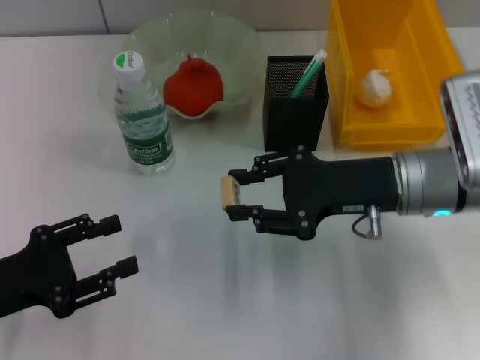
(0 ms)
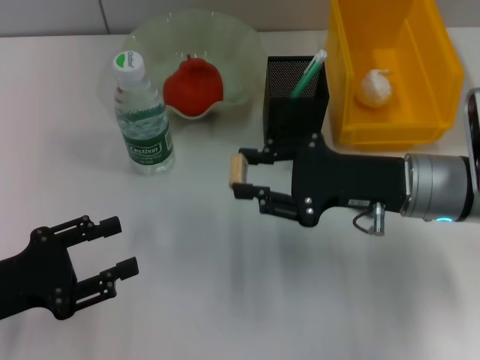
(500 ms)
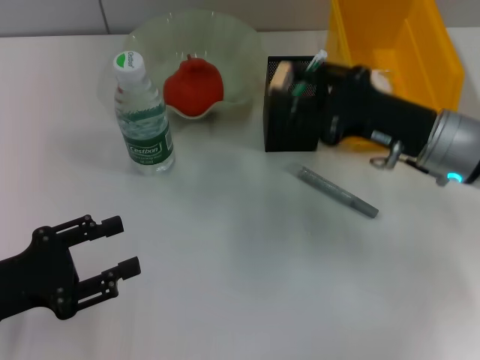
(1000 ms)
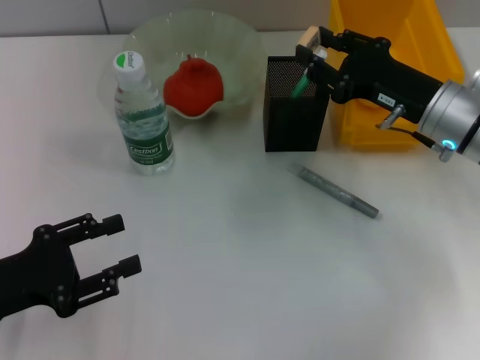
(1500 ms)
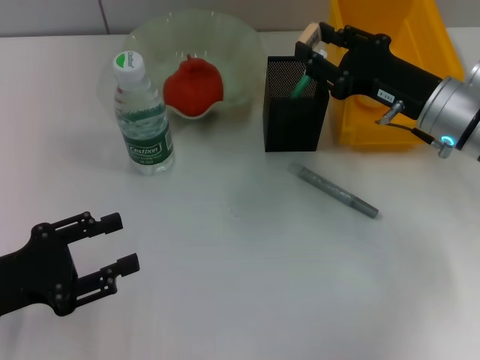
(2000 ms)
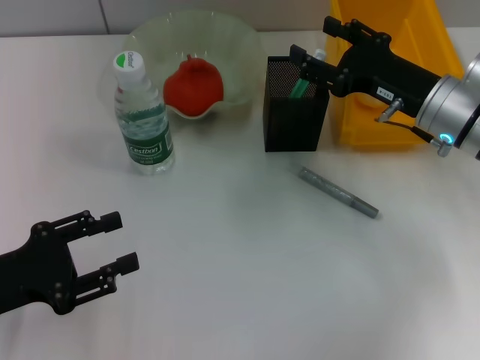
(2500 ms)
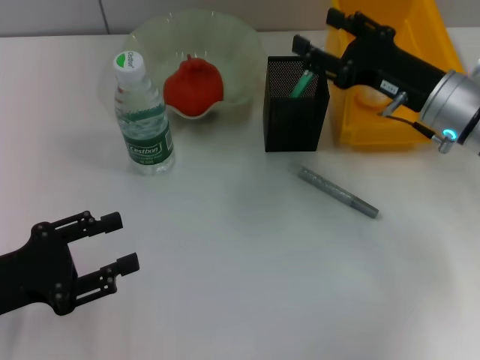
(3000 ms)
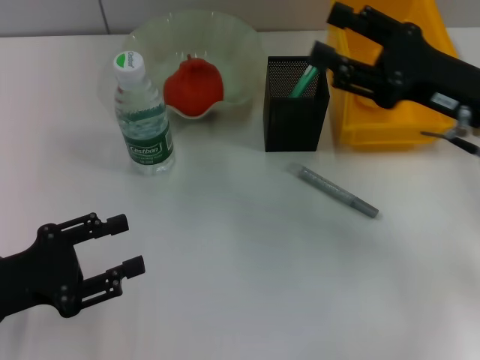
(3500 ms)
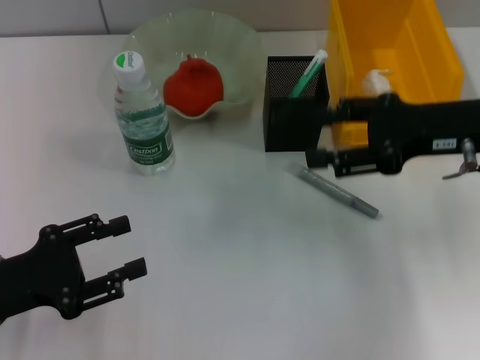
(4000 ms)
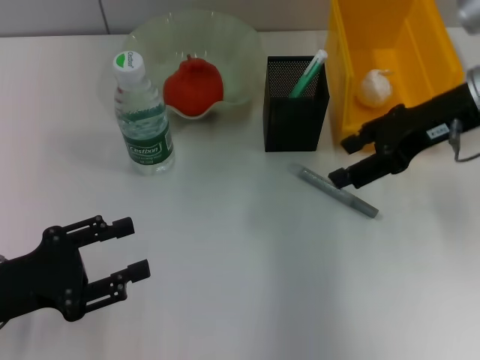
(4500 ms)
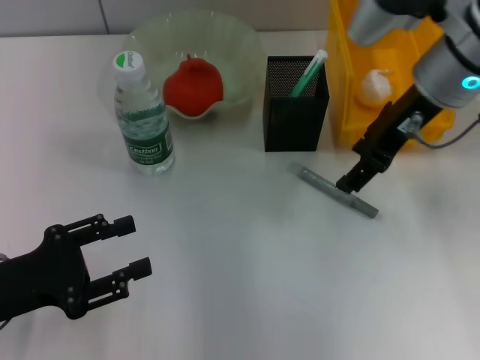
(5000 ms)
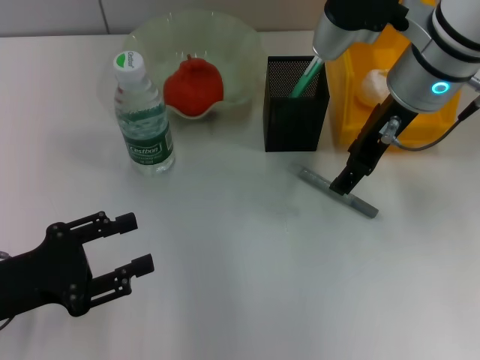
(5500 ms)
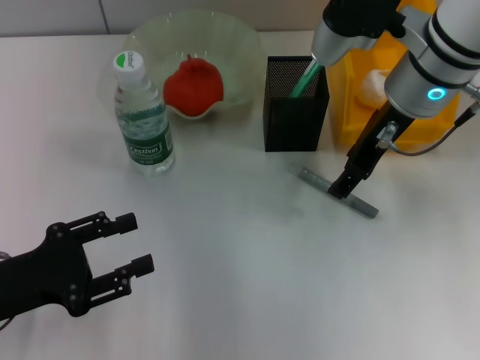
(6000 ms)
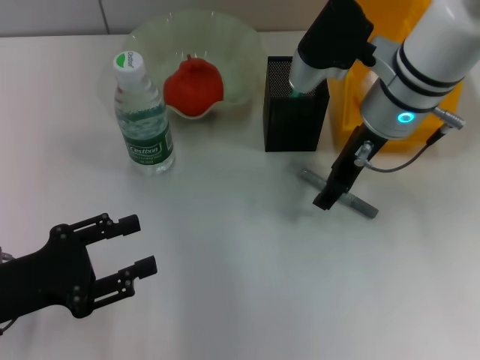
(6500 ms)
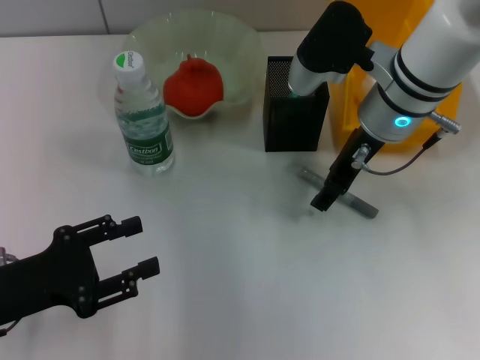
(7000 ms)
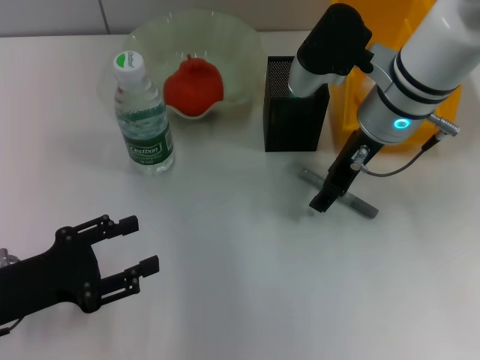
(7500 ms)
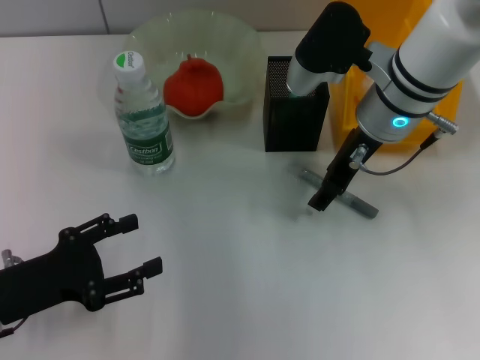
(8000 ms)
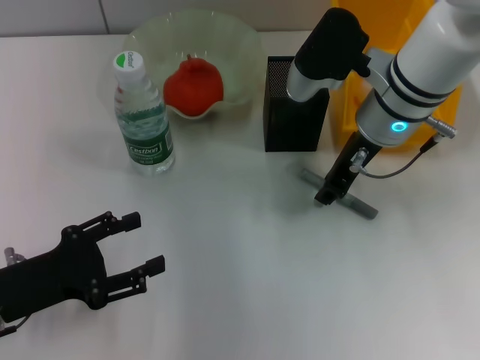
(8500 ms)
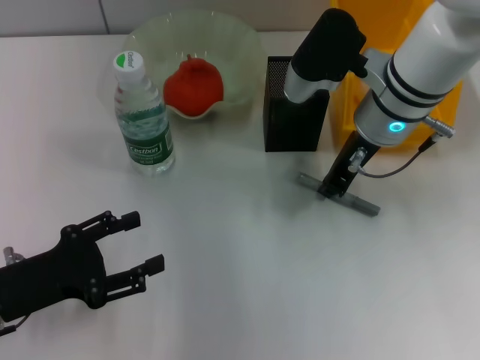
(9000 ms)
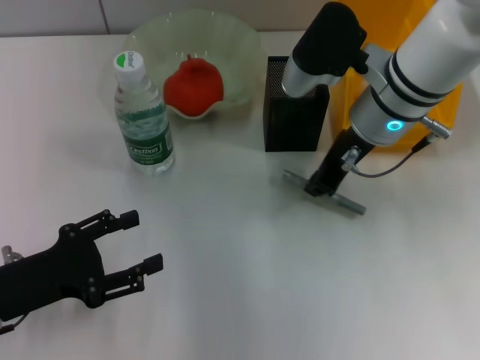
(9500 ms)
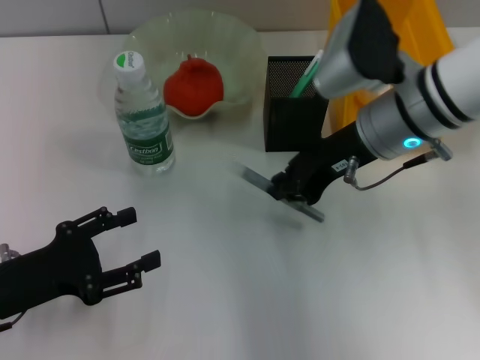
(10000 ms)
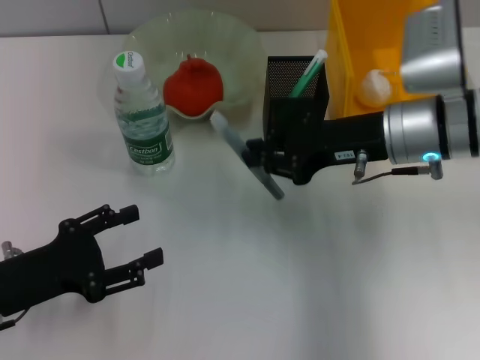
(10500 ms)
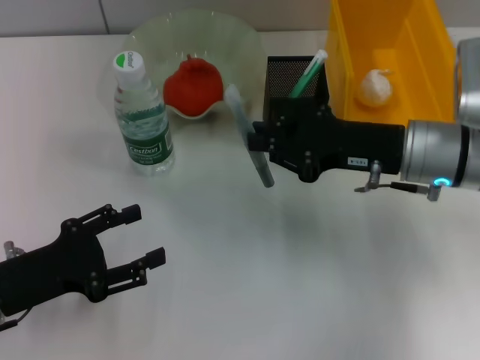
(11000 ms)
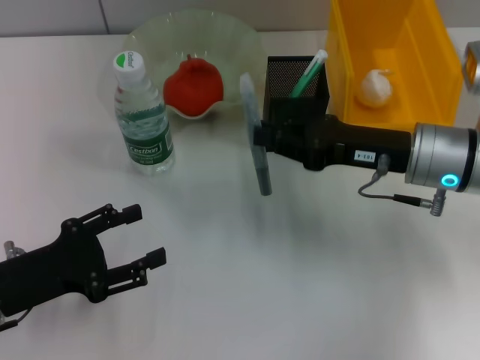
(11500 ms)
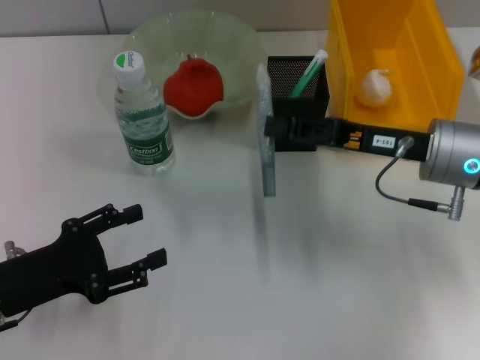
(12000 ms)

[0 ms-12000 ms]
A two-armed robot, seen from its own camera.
Step, 0 ms to 2500 ms: Put the eraser into the pen holder with the right hand.
Step, 3000 ms to 9000 ms: Grab the gray glue with the right hand.
0 ms to 2000 ms: The right gripper travels forward by some 5 cm.
2000 ms to 4000 ms: The right gripper shifts about 5 cm upward.
4000 ms to 6000 ms: The right gripper heads to the left and forward, covering about 10 cm.
6000 ms to 8000 ms: The grippers stay close to where they were, moving slightly.
8000 ms to 10000 ms: The right gripper closes up.
10000 ms to 12000 ms: The right gripper shifts about 5 cm to the right.

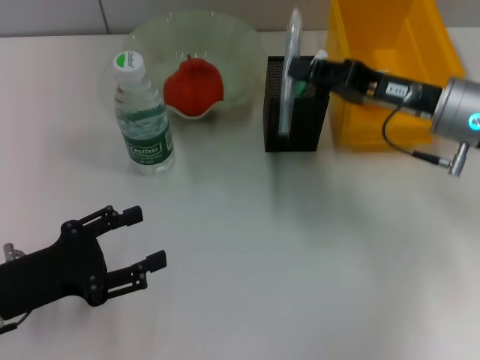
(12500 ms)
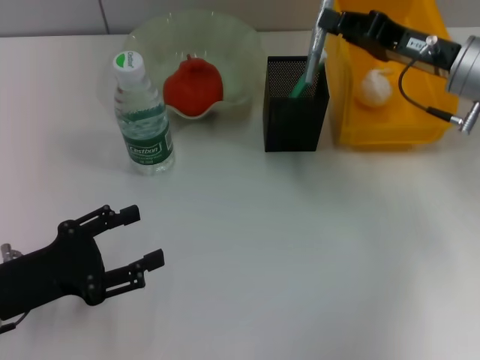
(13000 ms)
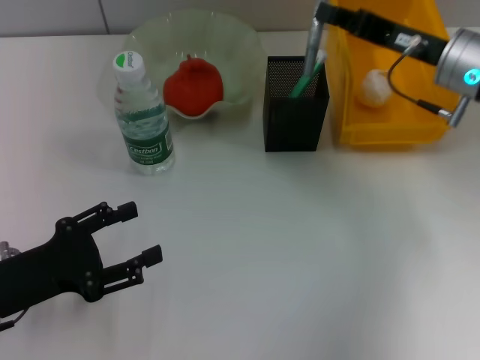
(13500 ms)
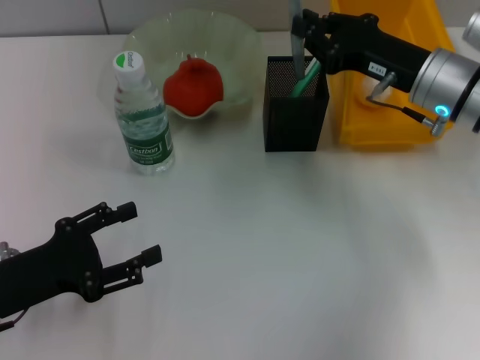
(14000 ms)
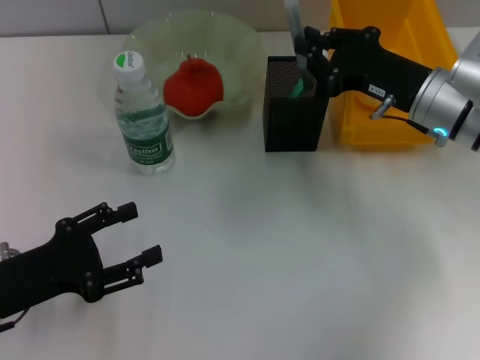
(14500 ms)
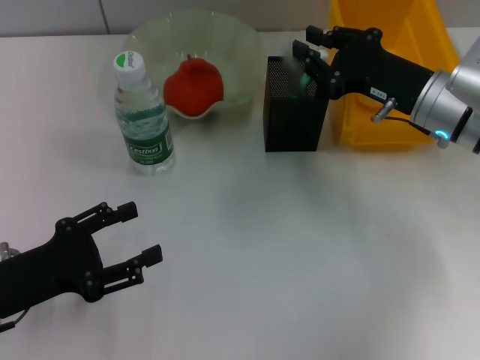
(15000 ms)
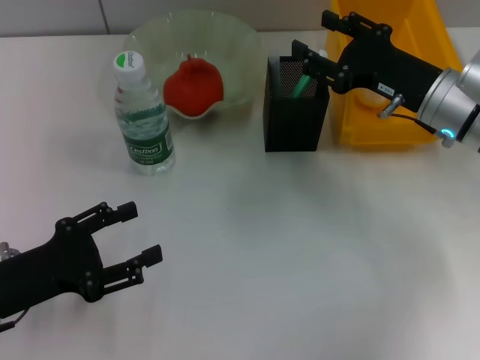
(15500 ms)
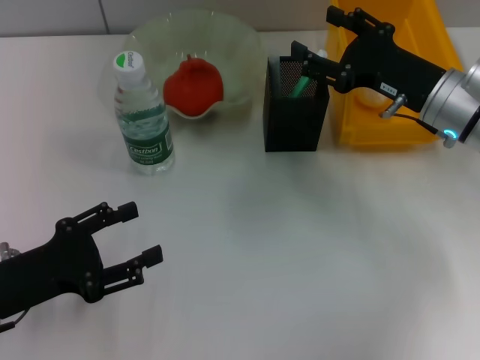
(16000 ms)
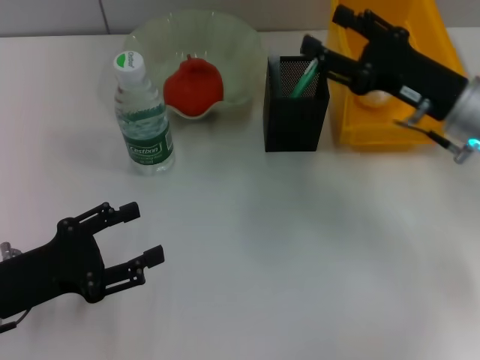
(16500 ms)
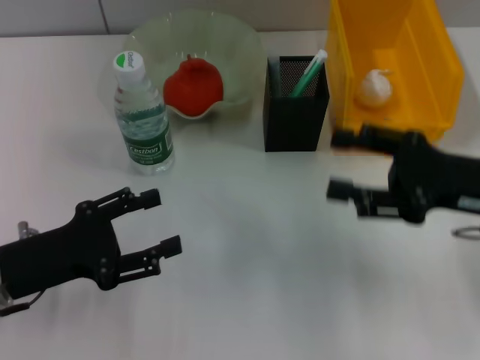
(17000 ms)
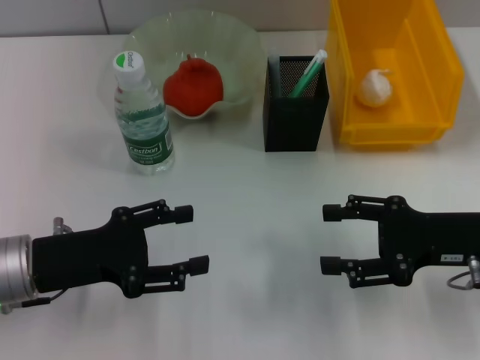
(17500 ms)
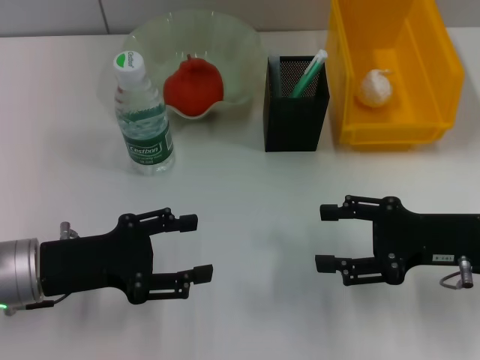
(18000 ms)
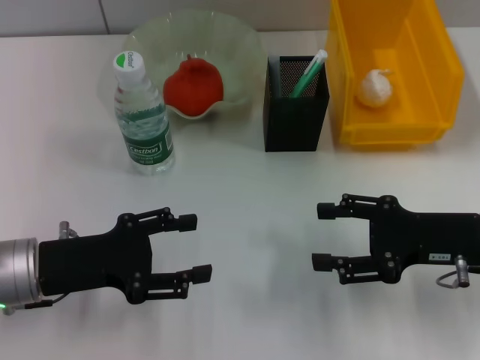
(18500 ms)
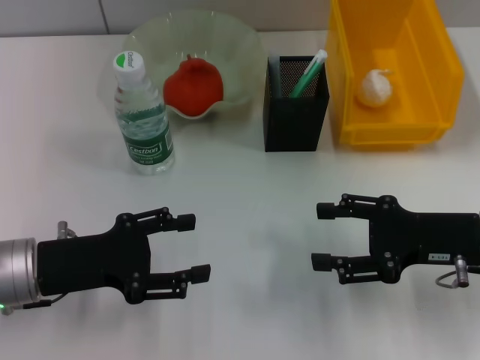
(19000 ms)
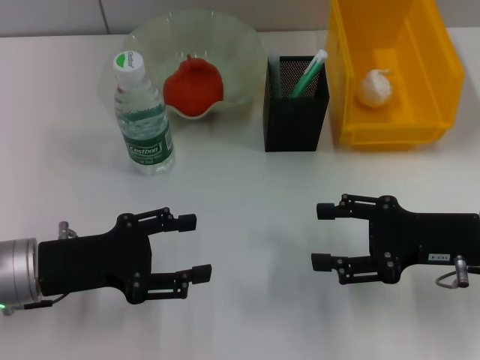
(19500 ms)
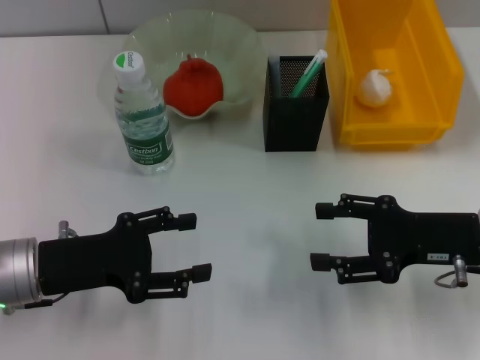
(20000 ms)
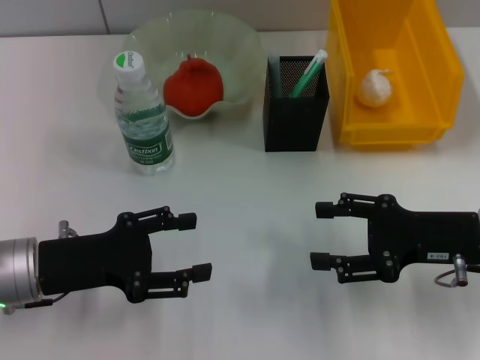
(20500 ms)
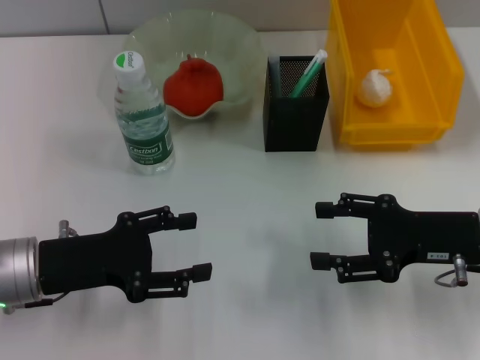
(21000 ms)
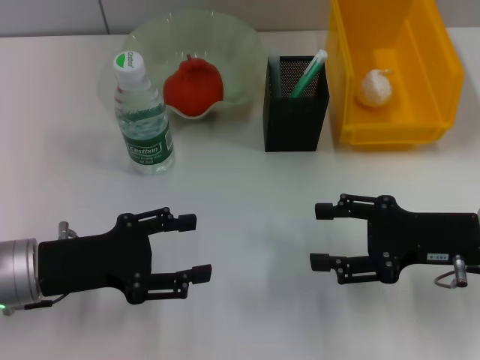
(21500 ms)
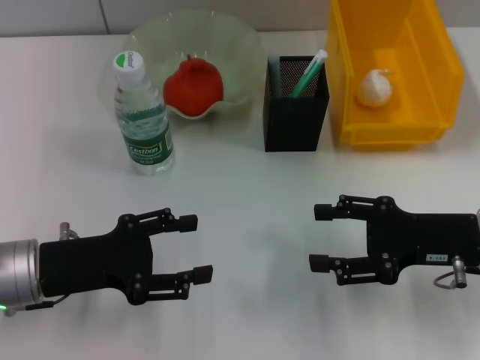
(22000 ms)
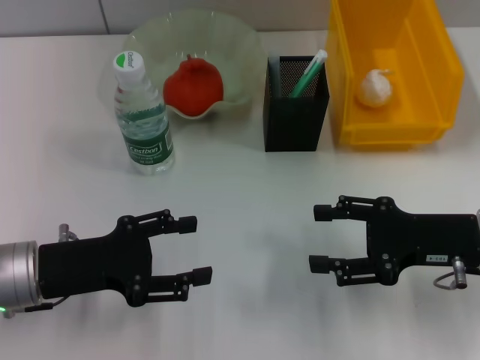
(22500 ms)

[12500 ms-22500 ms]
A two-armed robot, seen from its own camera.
Step, 12500 ms to 15000 ms: Place the gray glue into the pen holder with the right hand.
14500 ms to 16500 ms: The right gripper opens up.
16500 ms to 18500 ms: The left gripper shifts by approximately 5 cm; the right gripper heads backward, covering roughly 10 cm.
18500 ms to 22500 ms: Both grippers stay put.

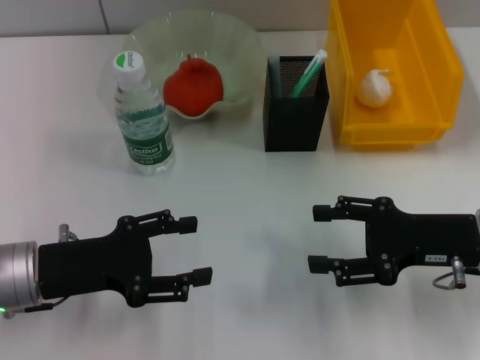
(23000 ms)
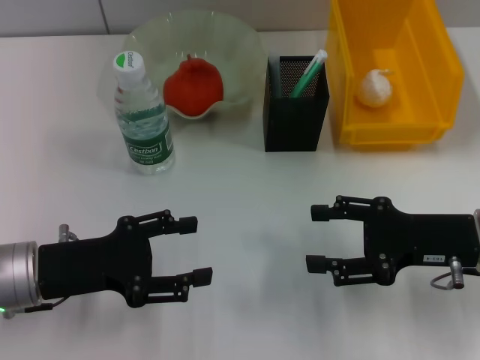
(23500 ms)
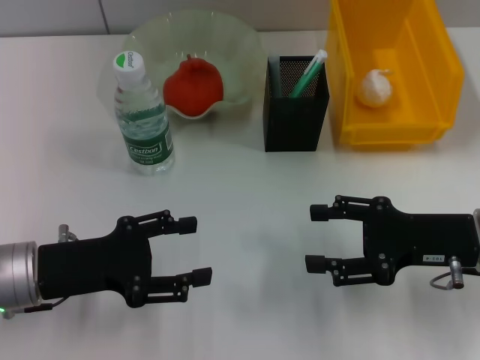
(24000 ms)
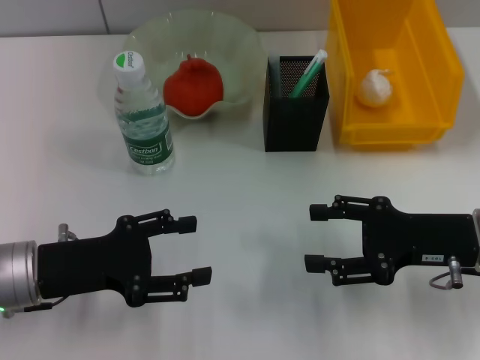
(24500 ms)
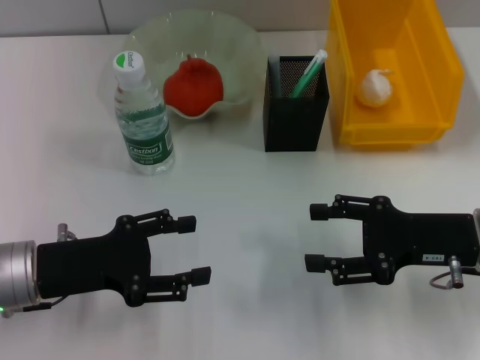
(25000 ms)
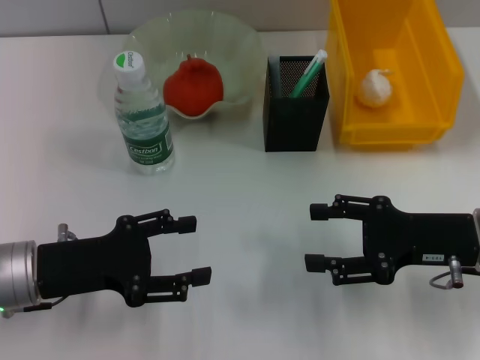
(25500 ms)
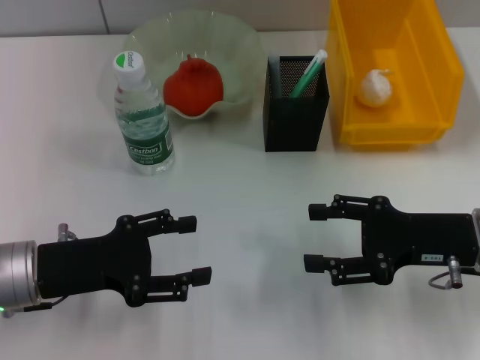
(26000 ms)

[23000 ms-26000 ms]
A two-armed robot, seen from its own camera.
23000 ms to 26000 ms: Both grippers stay about where they are.
